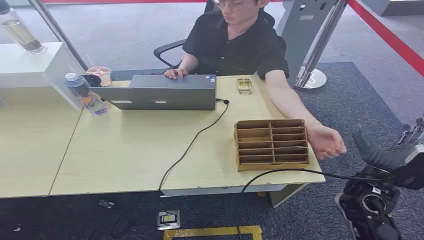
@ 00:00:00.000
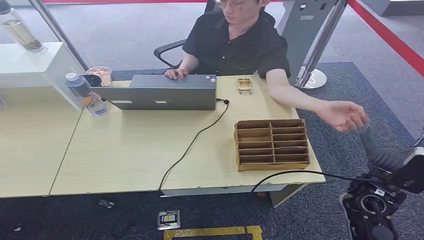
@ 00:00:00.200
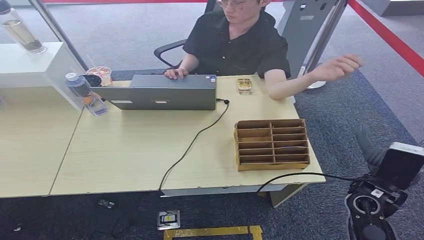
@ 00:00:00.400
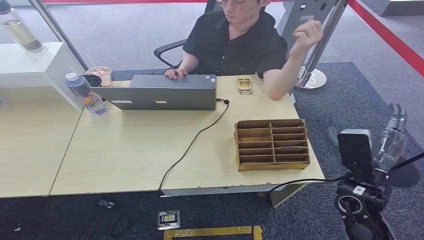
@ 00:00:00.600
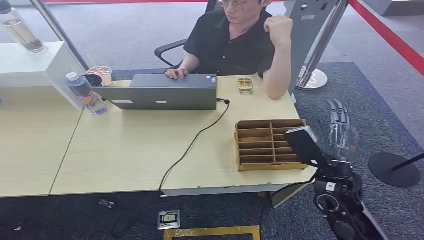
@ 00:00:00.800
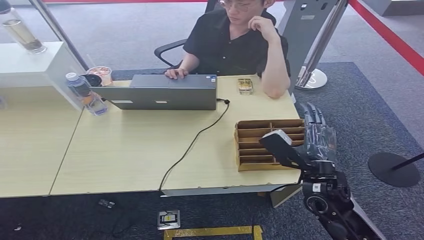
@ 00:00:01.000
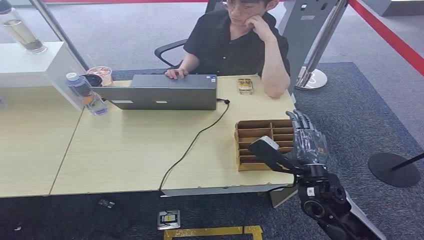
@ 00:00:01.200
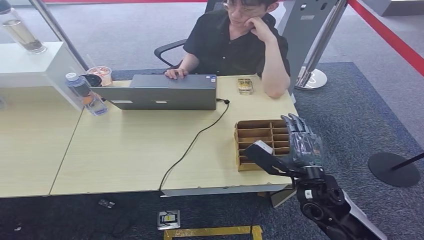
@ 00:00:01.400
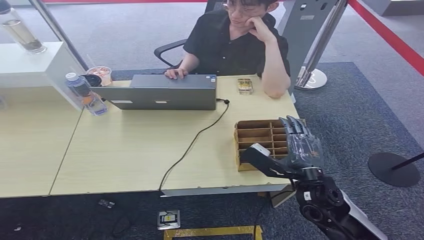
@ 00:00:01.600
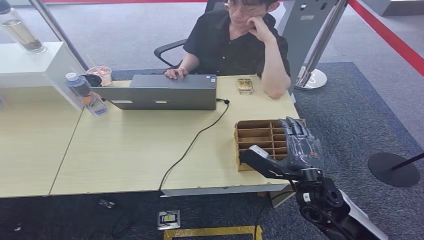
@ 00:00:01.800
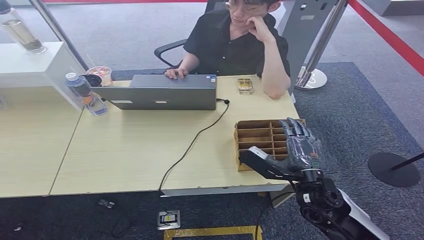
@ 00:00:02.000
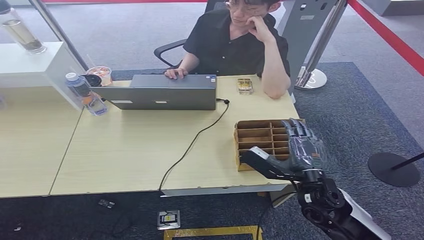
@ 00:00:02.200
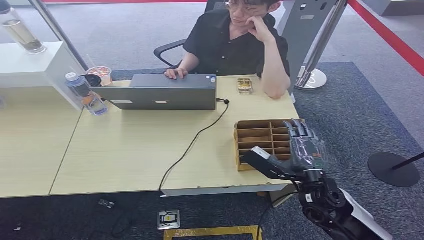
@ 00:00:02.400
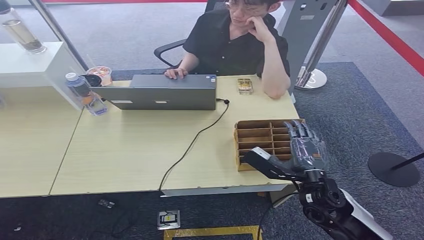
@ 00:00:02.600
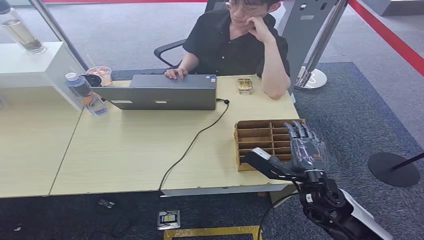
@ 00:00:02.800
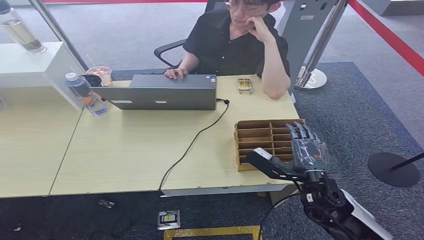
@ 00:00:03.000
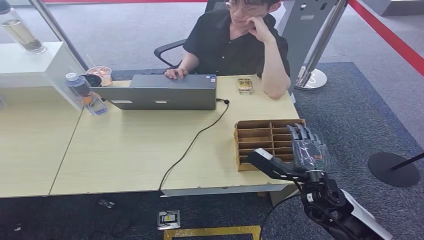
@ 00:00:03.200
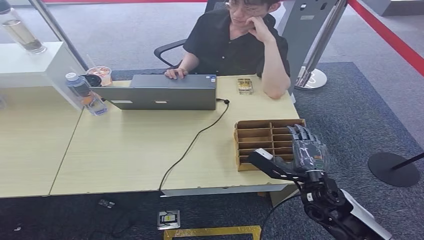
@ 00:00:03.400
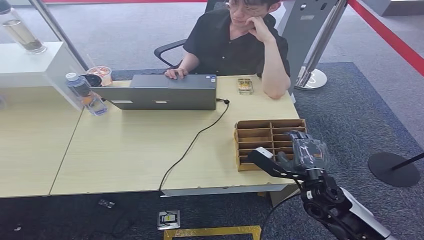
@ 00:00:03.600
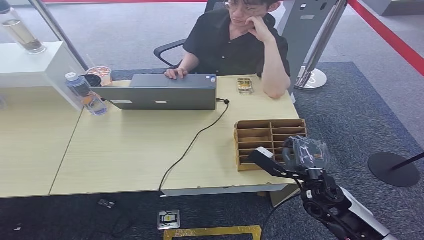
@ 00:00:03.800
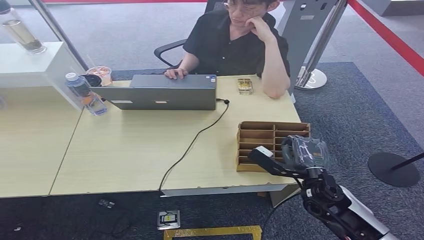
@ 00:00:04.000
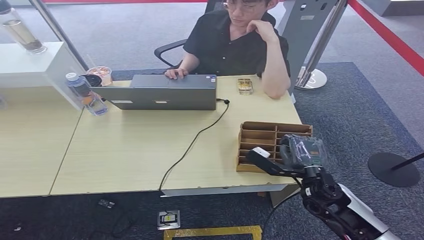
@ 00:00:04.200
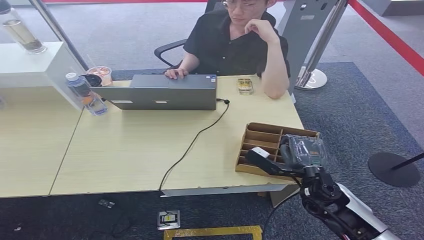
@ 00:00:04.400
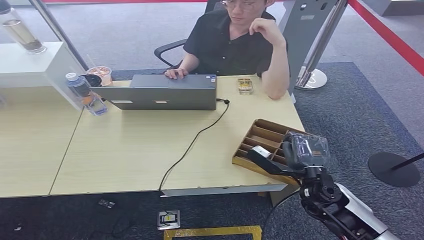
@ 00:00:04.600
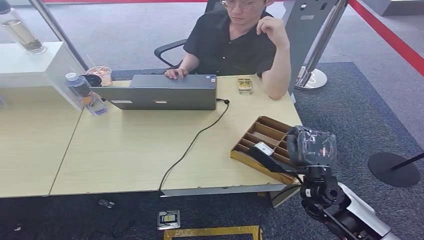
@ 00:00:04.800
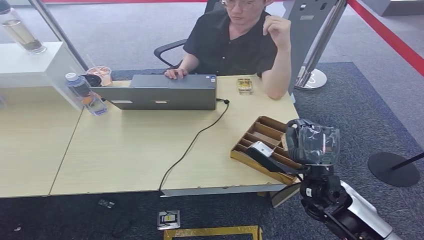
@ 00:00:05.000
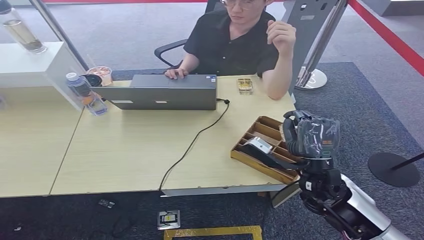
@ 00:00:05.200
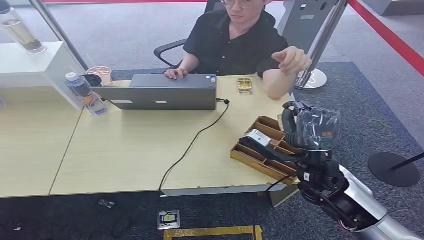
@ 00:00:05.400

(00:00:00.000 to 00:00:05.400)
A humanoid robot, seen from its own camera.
Step, 00:00:00.000 - 00:00:04.000: Pick up the room card from the card holder.
Step, 00:00:04.400 - 00:00:05.400: Hand the room card to the target.
00:00:01.400 - 00:00:04.000: The hands stay close to where they were, moving slightly.
00:00:04.000 - 00:00:05.400: The right hand moves upward, roughly 10 cm.
